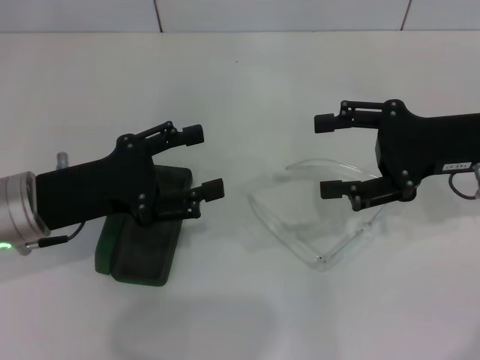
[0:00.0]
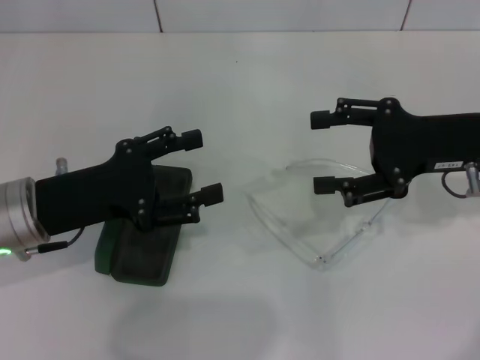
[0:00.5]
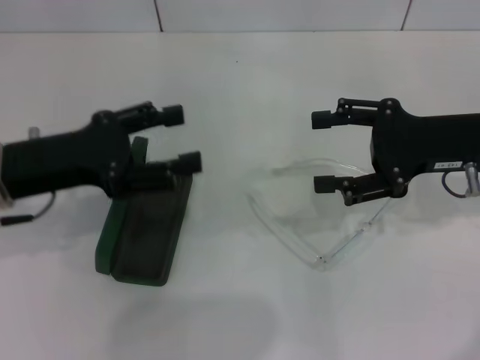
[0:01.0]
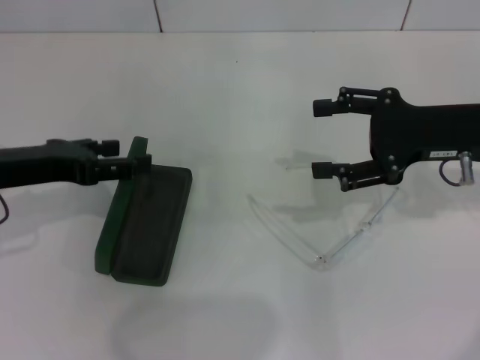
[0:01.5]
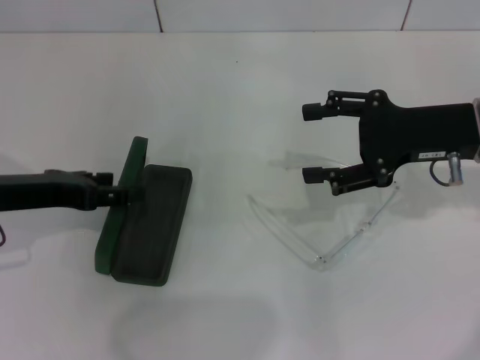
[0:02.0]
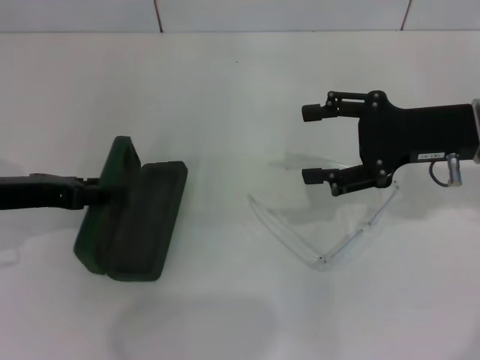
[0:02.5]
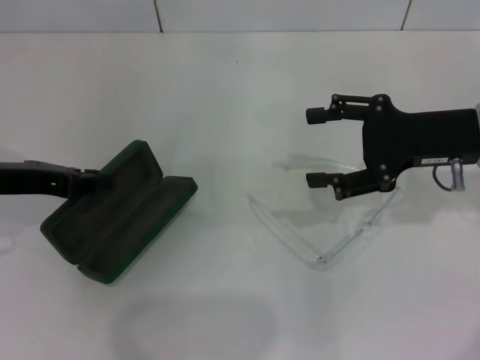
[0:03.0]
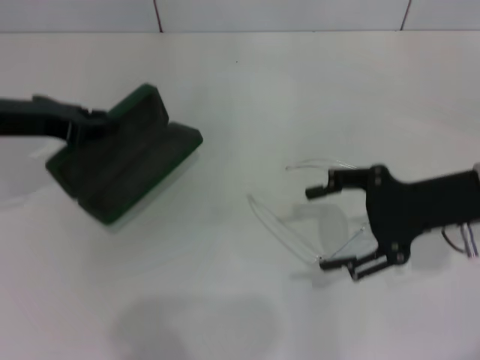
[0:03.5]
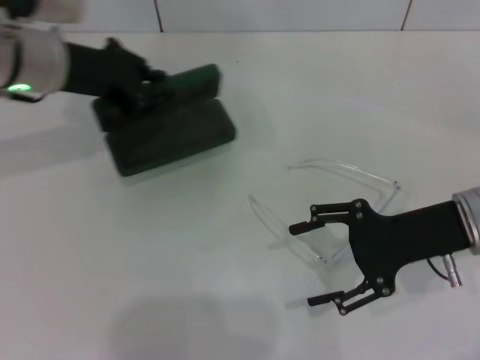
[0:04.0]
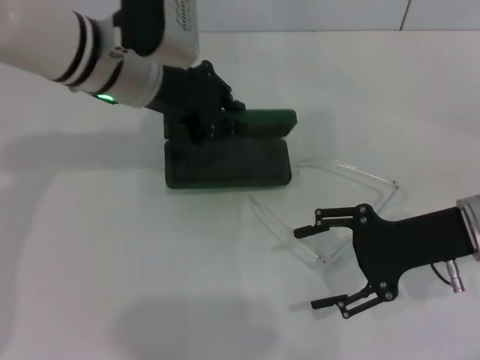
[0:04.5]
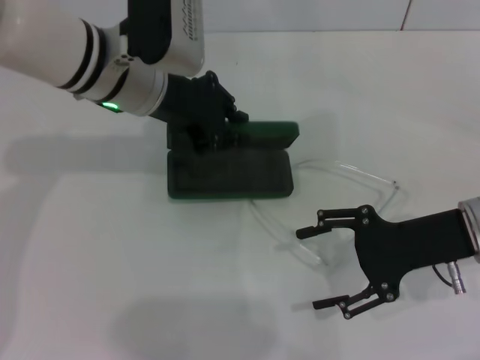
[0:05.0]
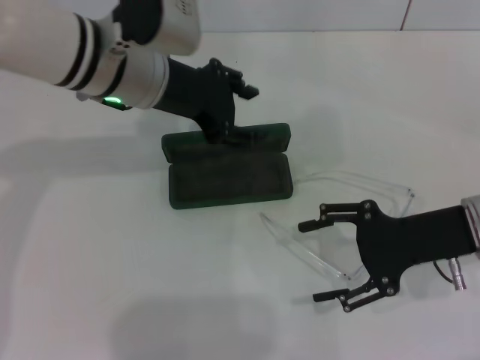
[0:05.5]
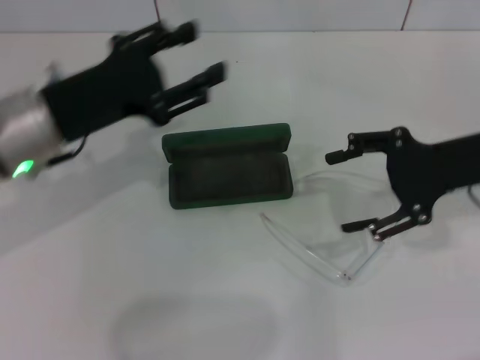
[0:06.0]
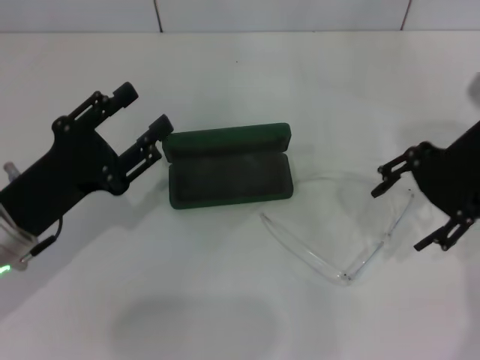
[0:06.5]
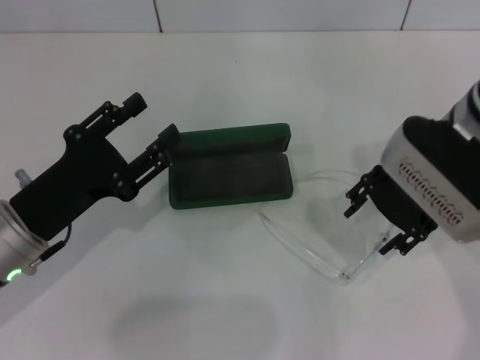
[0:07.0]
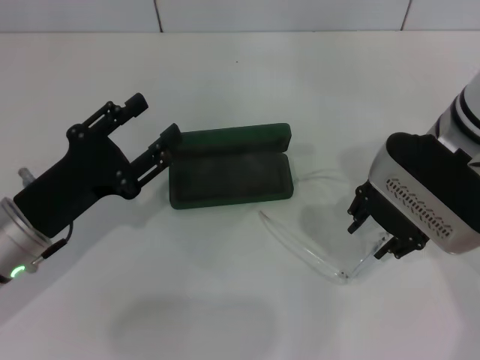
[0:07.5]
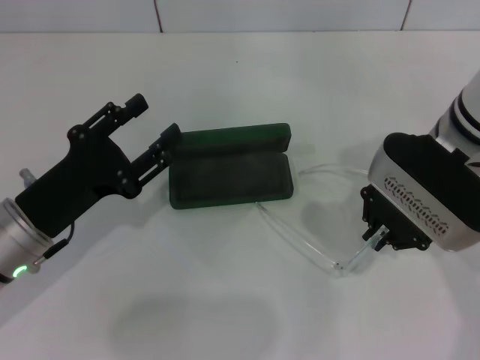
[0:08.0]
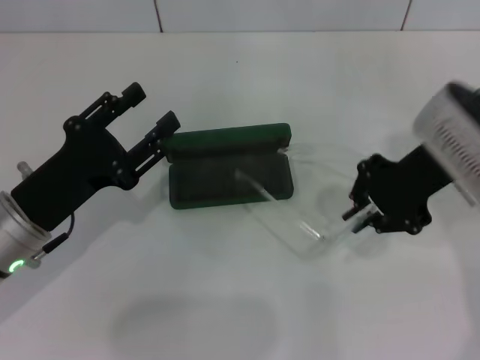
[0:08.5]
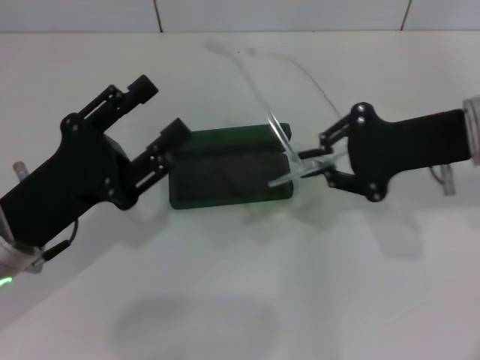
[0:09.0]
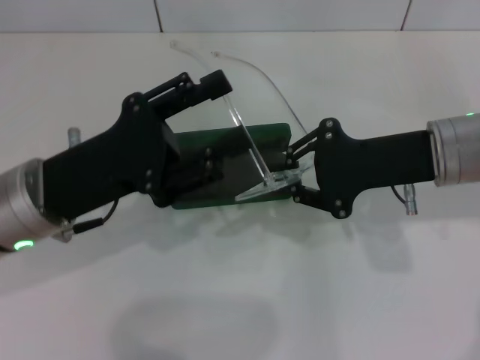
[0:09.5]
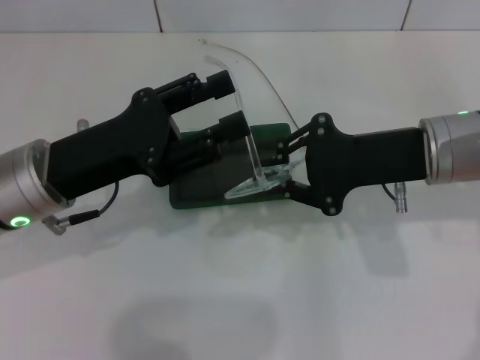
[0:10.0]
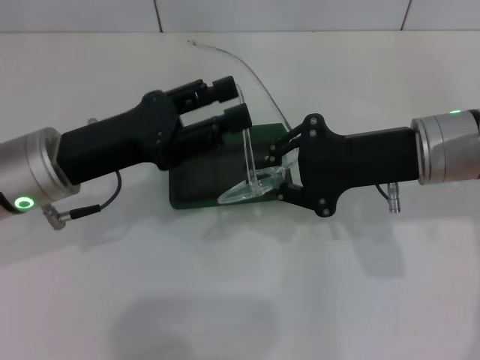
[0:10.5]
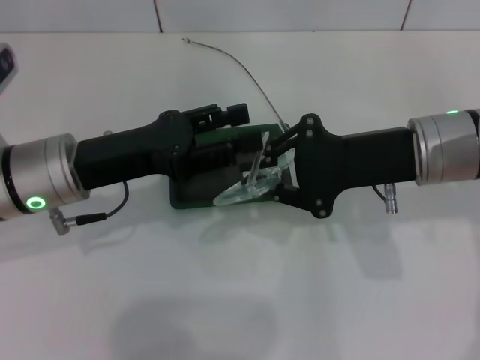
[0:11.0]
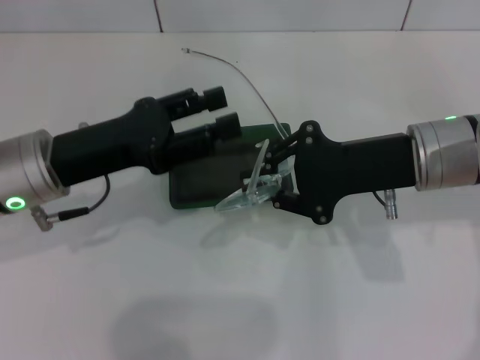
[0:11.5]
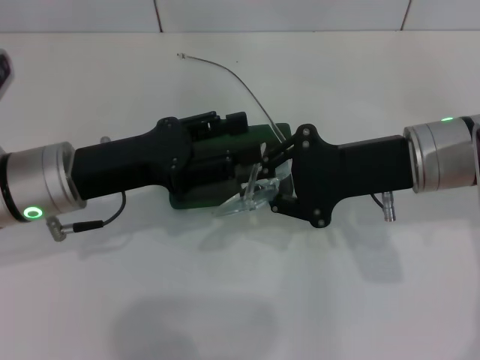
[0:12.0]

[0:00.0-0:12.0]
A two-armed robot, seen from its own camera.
Step, 0:00.0 to 0:02.5: Grab the glasses case with your left hand.
Step, 0:03.0 to 0:05.0: Place the glasses case in the center of the table with your left hand.
Step, 0:05.5 to 0:08.0: Grab the eyeglass frame with your right hand.
0:00.0 to 0:02.0: The left gripper changes place by approximately 5 cm.
0:02.0 to 0:04.0: The left gripper is displaced forward, to the right and upward by roughly 15 cm, and closes; the right gripper shifts by approximately 5 cm.
0:04.0 to 0:06.0: The left gripper heads backward, covering approximately 10 cm, goes to the right and returns, some 10 cm each way, and opens up. Meanwhile the right gripper is displaced upward by some 5 cm.
0:06.0 to 0:08.0: The right gripper heads to the left, covering some 10 cm, and closes. Meanwhile the left gripper shifts roughly 10 cm downward and backward.
0:08.0 to 0:10.0: The left gripper heads upward, covering approximately 5 cm.
0:10.0 to 0:12.0: The grippers move only a little.

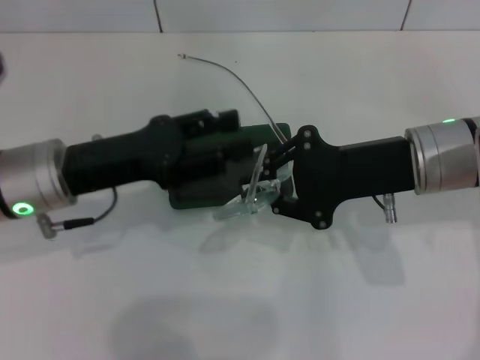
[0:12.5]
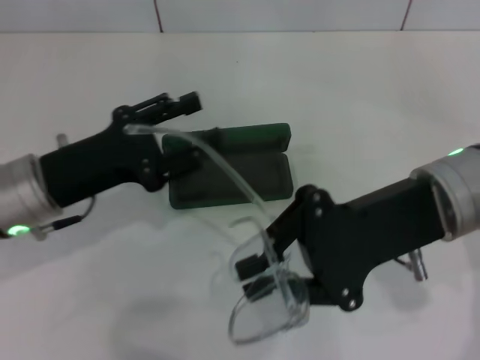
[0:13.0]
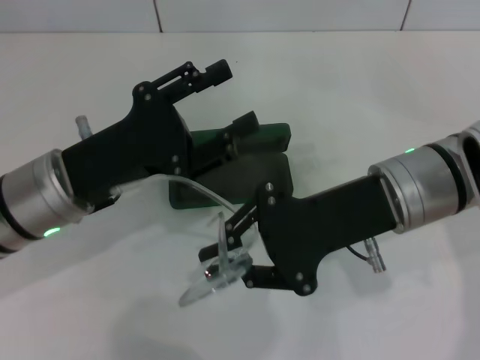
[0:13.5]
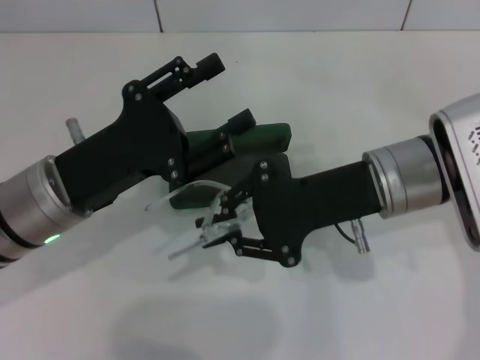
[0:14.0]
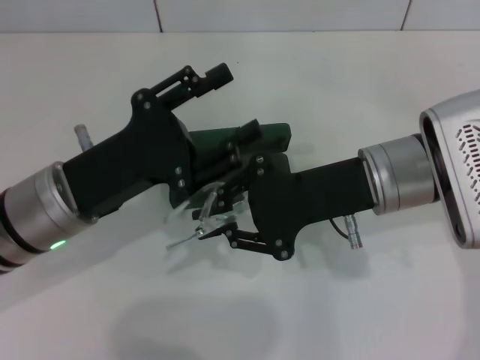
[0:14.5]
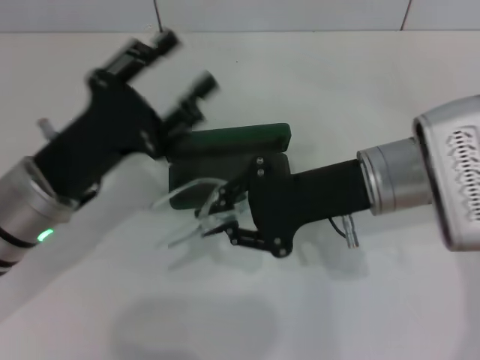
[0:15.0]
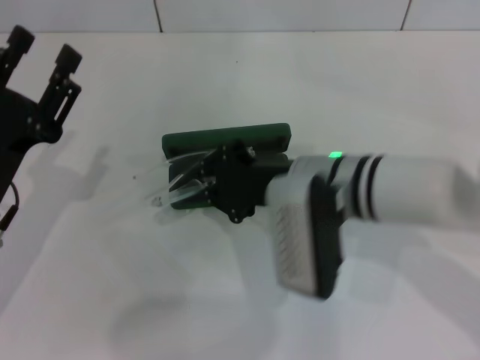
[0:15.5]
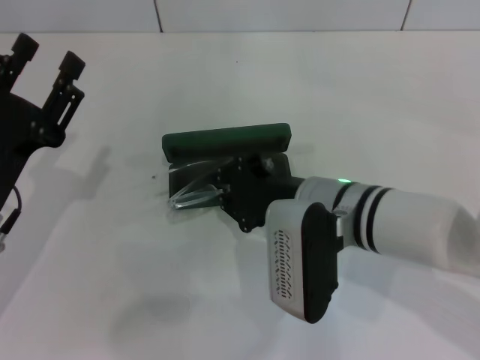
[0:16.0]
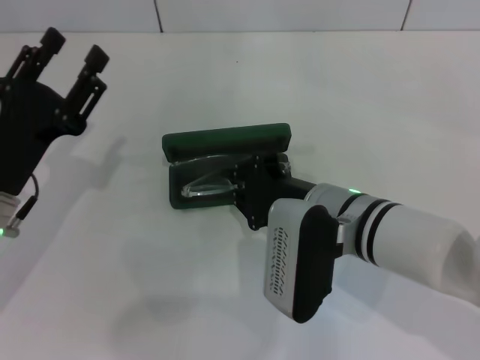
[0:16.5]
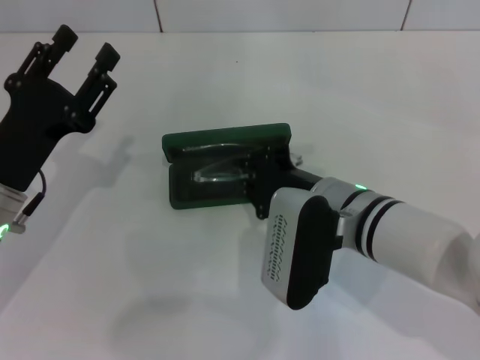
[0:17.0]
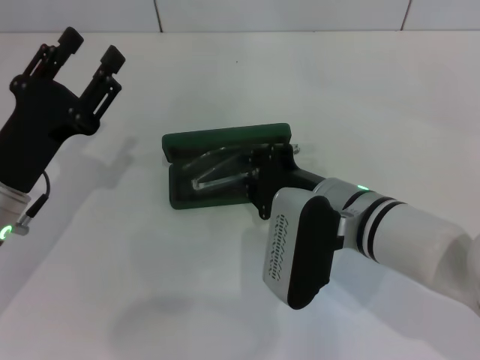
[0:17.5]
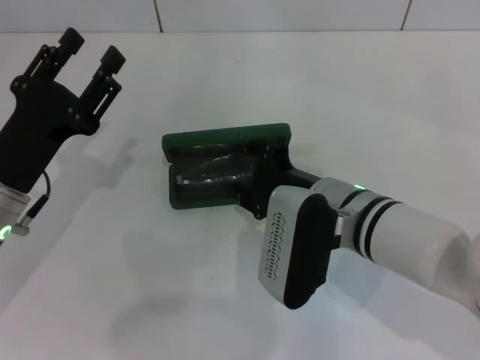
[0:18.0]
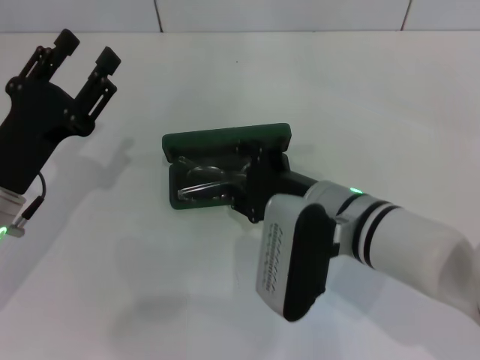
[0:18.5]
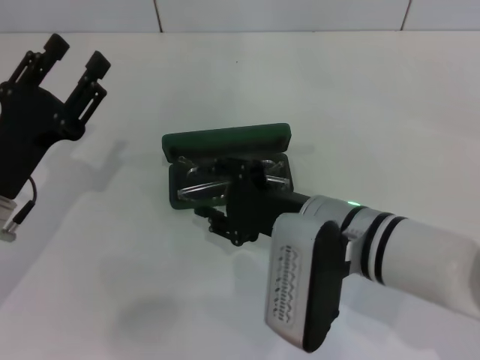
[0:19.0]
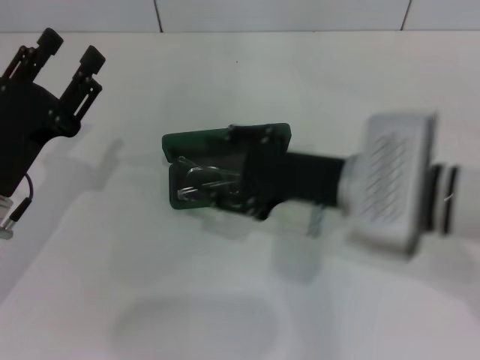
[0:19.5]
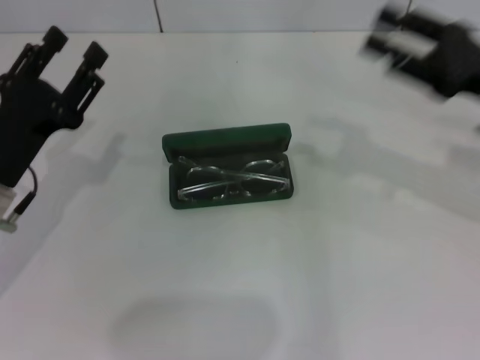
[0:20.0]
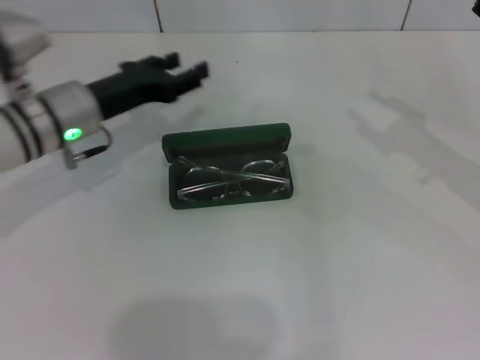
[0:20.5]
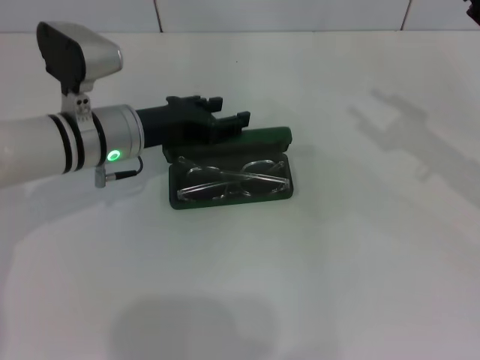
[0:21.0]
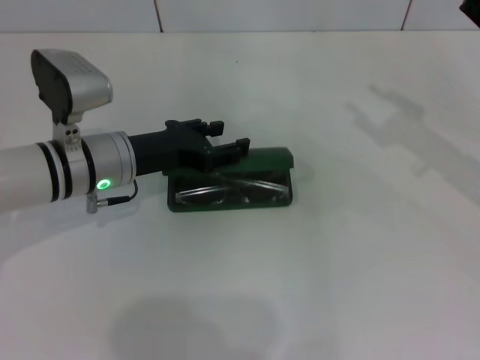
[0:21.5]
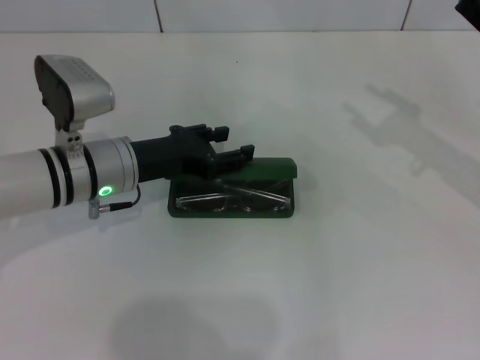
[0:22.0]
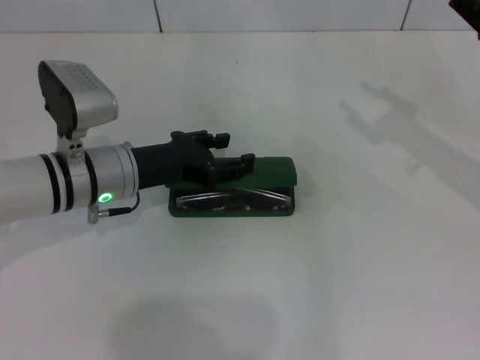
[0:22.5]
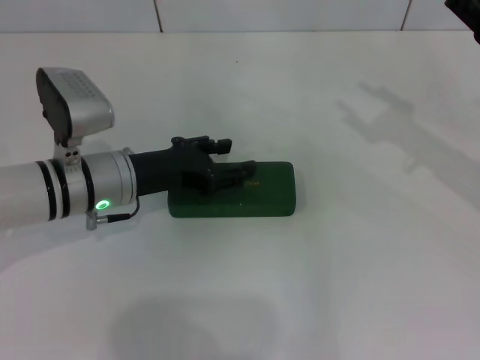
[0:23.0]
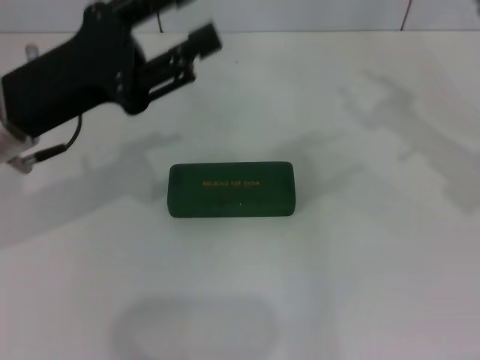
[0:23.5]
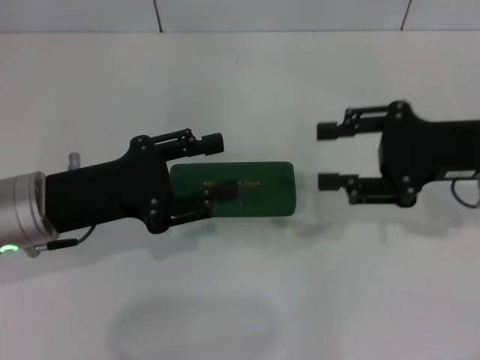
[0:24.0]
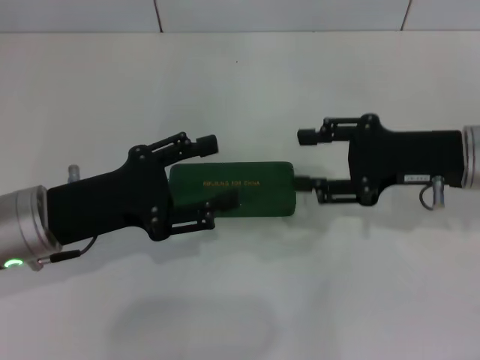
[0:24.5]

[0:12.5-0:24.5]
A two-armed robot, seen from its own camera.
Step, 0:12.5 to 0:14.5: Fold the frame with your left hand.
Step, 0:15.5 to 0:18.5: Put the glasses into the case with your right hand.
Step, 0:19.0 to 0:23.0: Close the glasses case with your left hand.
0:14.5 to 0:16.5: The right gripper moves downward, approximately 5 cm. Meanwhile the left gripper is displaced to the left by roughly 5 cm.
0:16.5 to 0:18.5: The right gripper opens.
0:18.5 to 0:20.5: The left gripper travels forward by approximately 10 cm; the right gripper goes approximately 25 cm to the right.
0:20.5 to 0:22.5: The left gripper ends up approximately 5 cm from where it was.
0:22.5 to 0:24.5: The right gripper shifts approximately 10 cm to the left; the left gripper travels backward by approximately 10 cm, and reaches about 10 cm upward, then returns.
